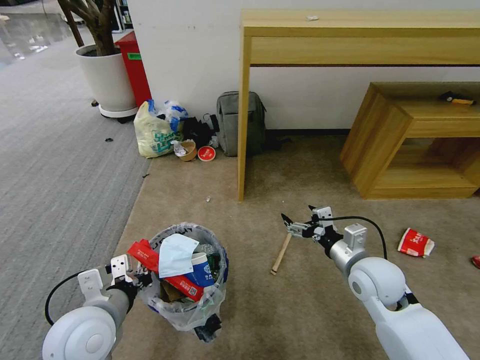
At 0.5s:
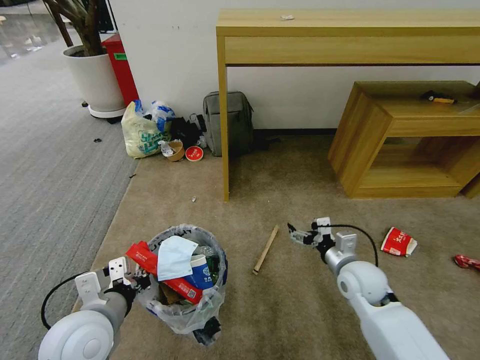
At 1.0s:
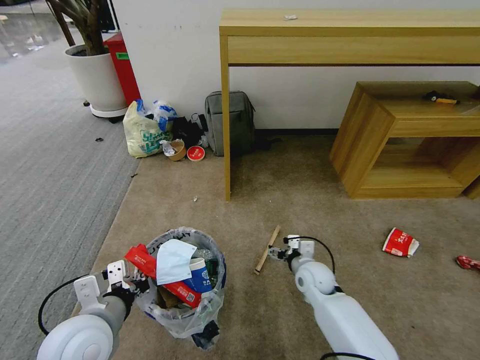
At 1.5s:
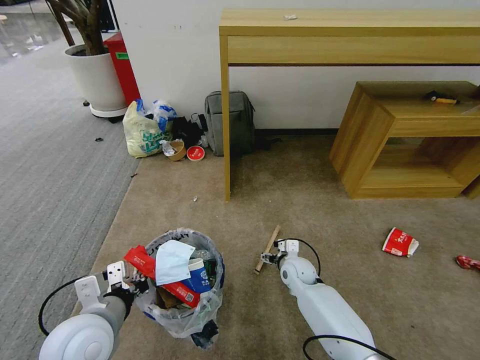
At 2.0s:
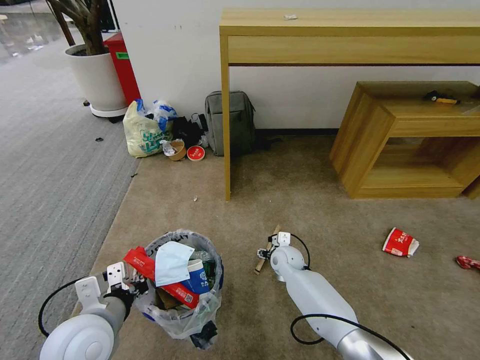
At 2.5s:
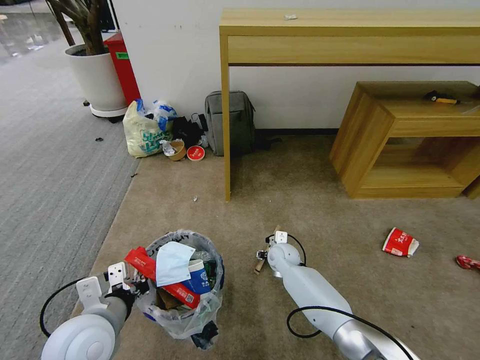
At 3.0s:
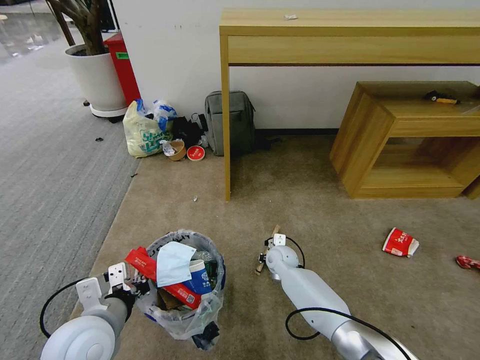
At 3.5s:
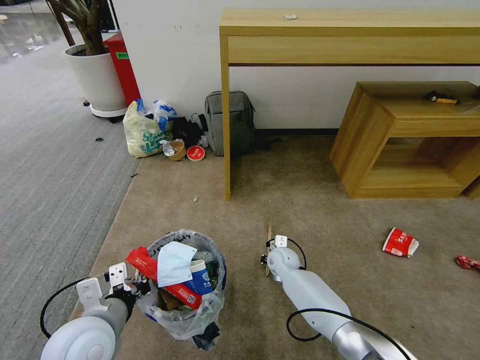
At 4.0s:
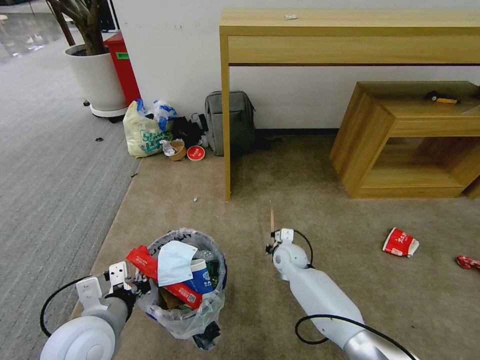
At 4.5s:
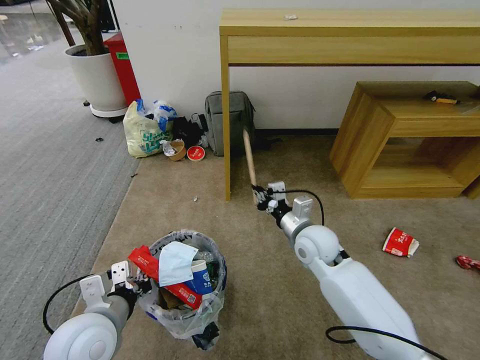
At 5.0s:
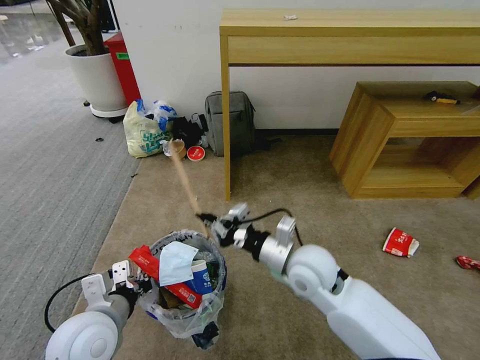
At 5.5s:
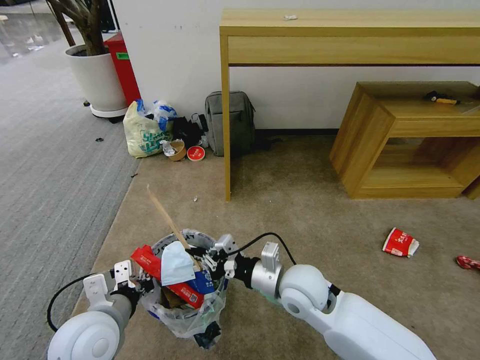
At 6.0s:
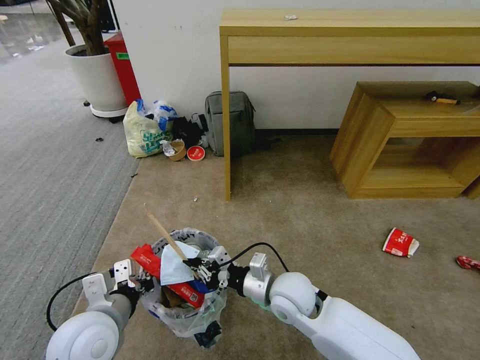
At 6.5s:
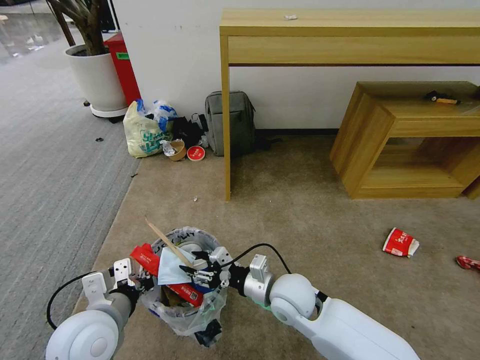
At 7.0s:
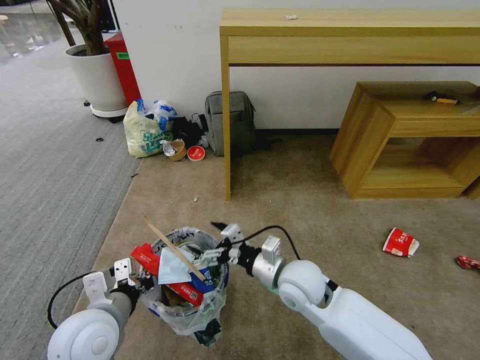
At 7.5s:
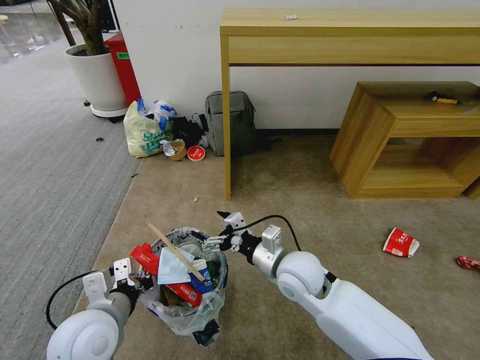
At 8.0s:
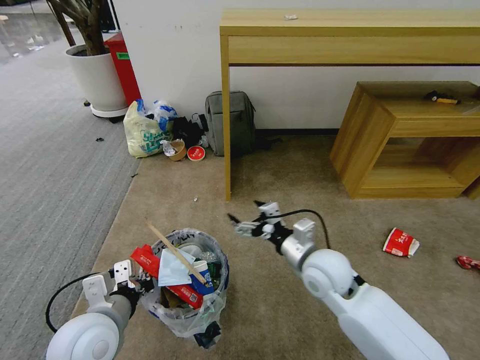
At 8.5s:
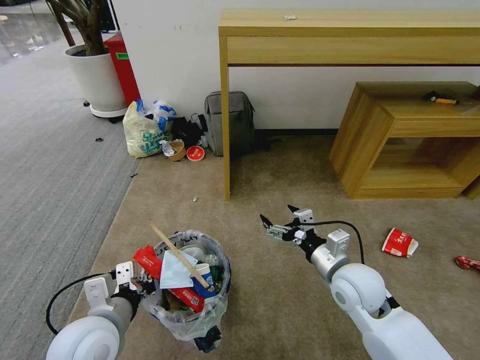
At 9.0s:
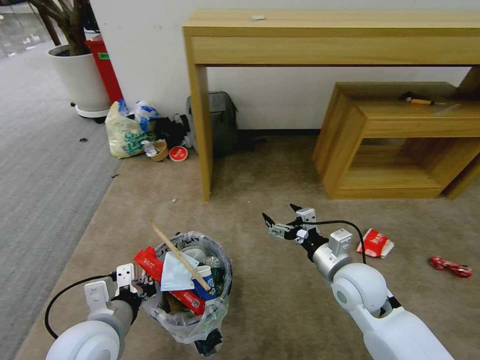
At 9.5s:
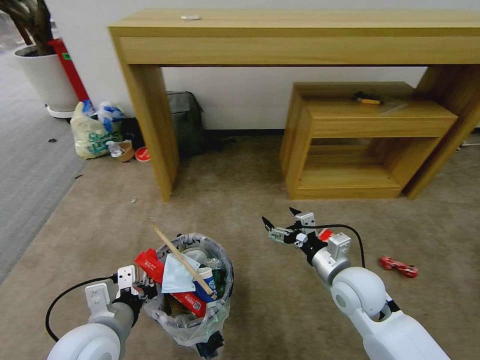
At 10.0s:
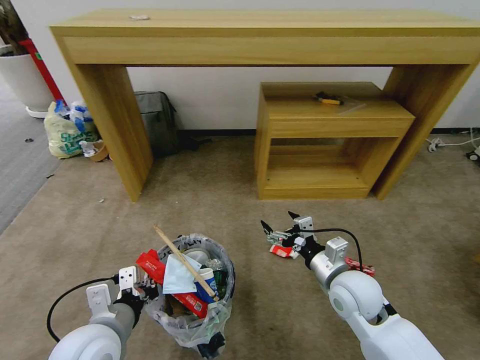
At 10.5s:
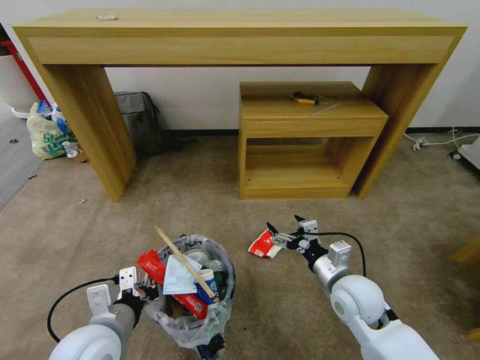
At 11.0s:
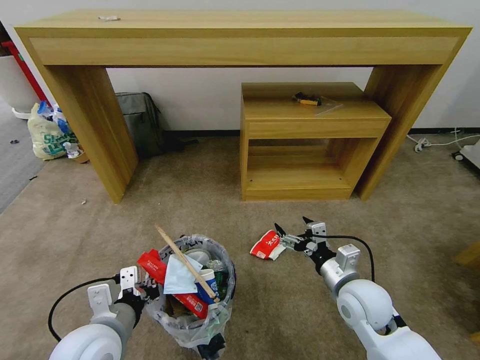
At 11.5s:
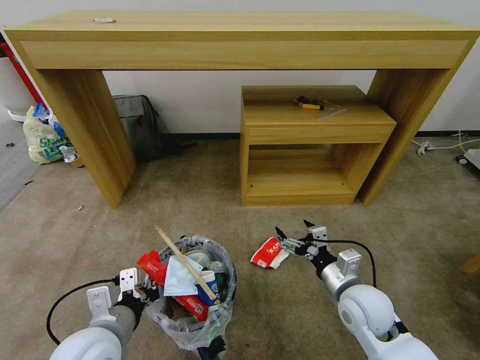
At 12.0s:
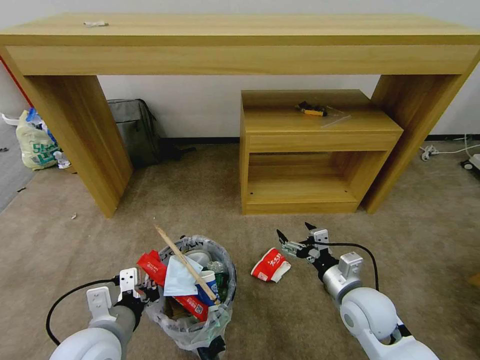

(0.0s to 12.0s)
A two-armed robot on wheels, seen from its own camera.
Task of the whole recording: Pick up the trash bin and place the garbage on the floor into it.
0.0s - 2.0s: The right gripper is displaced downward, forward and to the left by some 25 cm.
2.0s - 4.0s: The right gripper closes its fingers.
4.0s - 6.0s: The right gripper moves backward and upward, some 20 cm.
6.0s - 8.0s: The right gripper shifts some 10 cm to the right and upward, and opens.
8.0s - 10.0s: The right gripper moves to the right, some 5 cm.

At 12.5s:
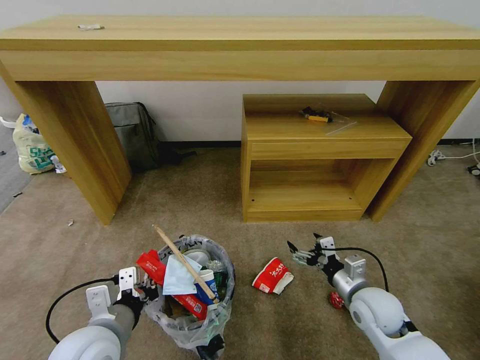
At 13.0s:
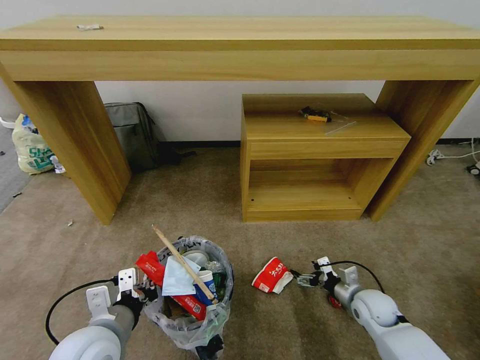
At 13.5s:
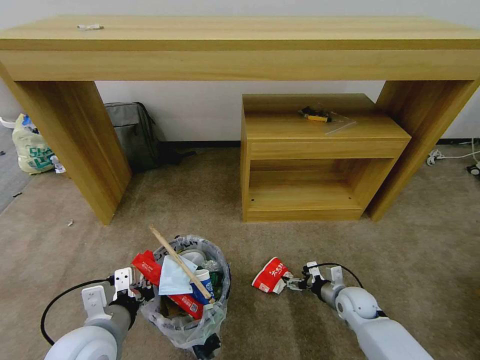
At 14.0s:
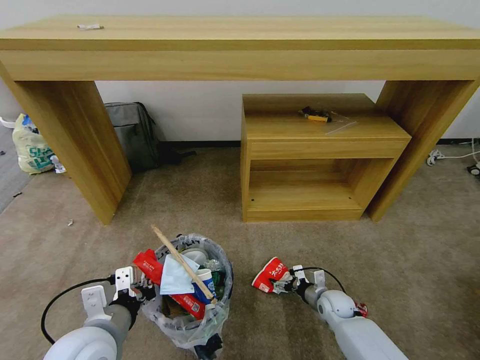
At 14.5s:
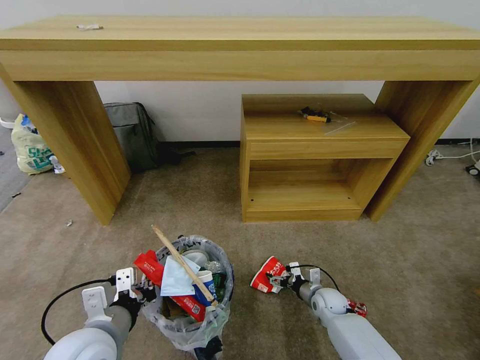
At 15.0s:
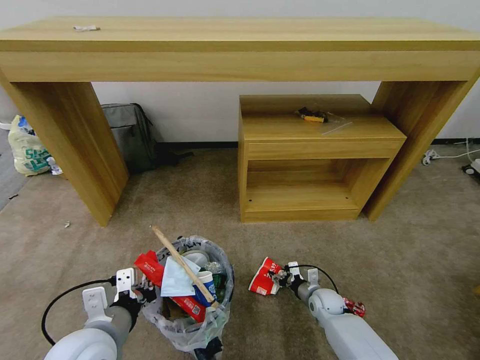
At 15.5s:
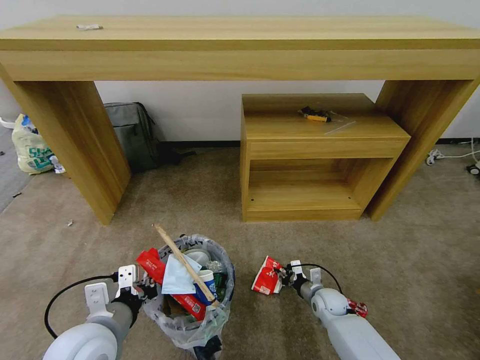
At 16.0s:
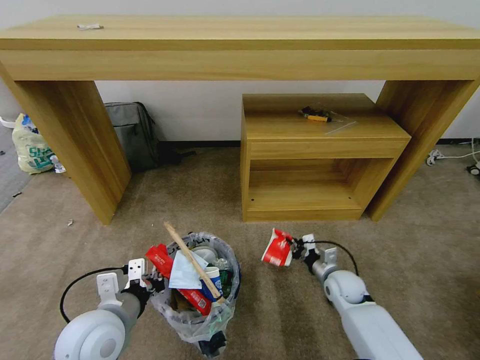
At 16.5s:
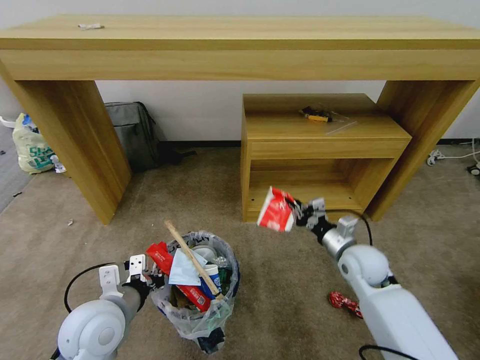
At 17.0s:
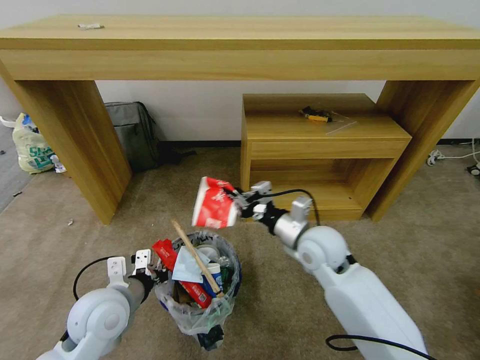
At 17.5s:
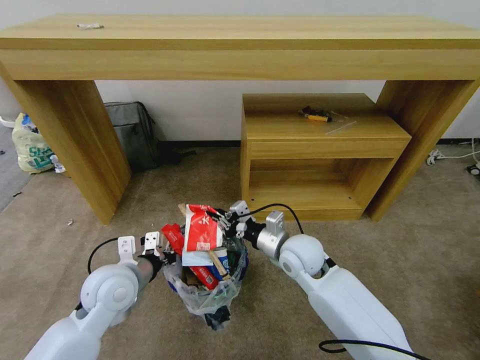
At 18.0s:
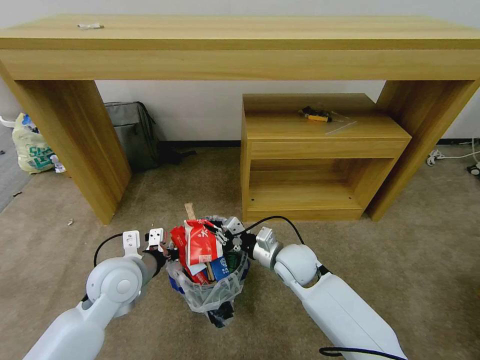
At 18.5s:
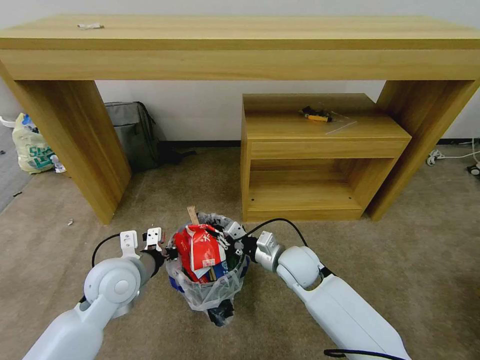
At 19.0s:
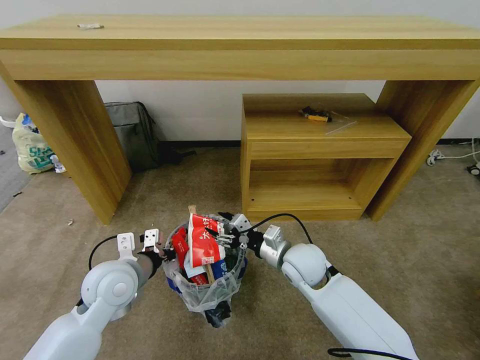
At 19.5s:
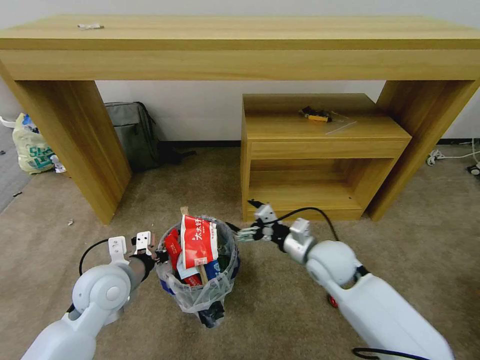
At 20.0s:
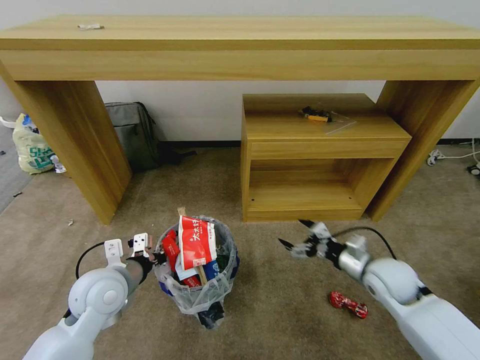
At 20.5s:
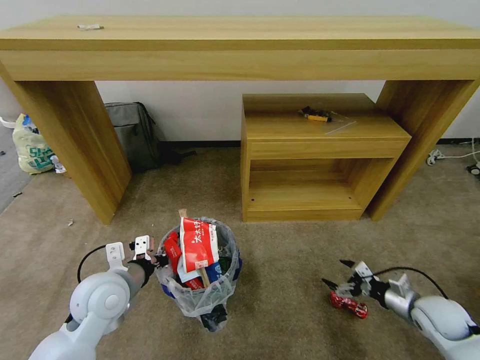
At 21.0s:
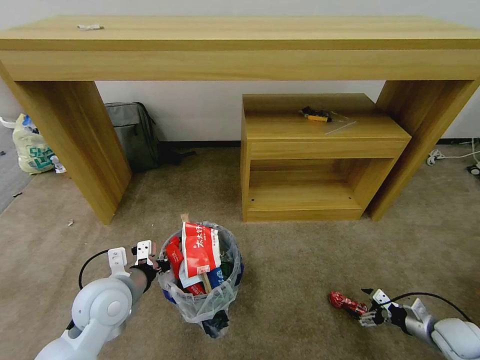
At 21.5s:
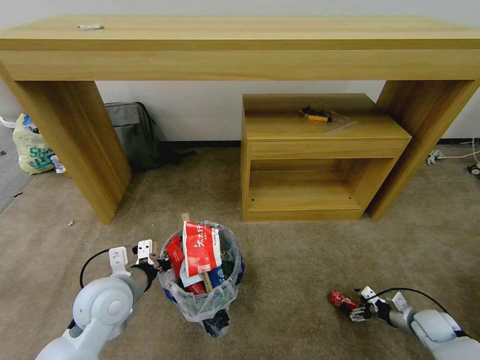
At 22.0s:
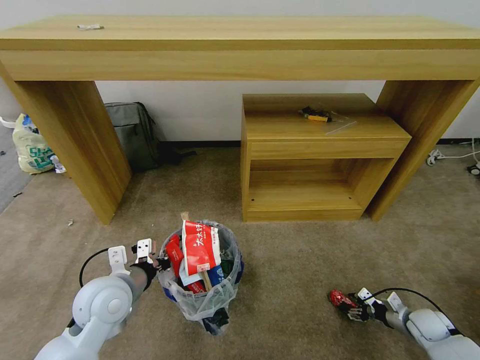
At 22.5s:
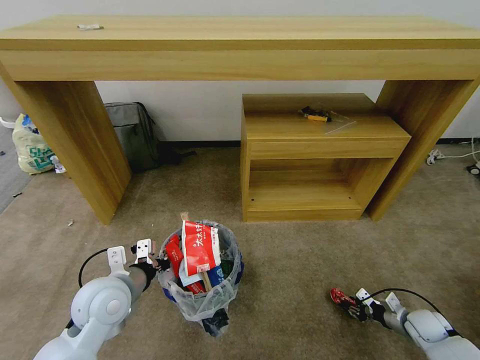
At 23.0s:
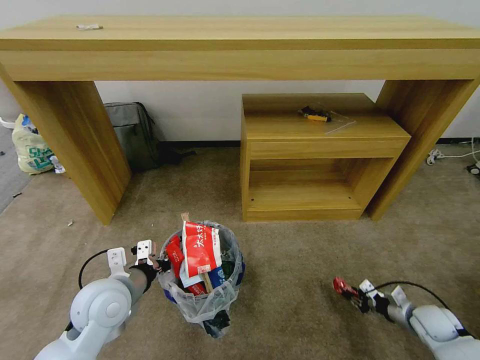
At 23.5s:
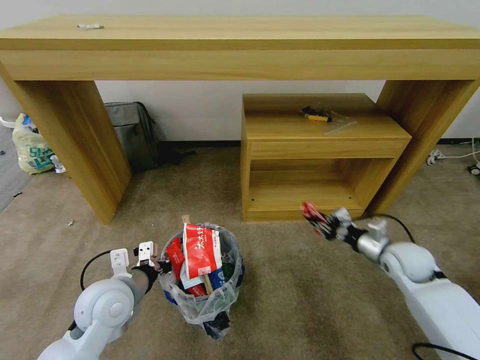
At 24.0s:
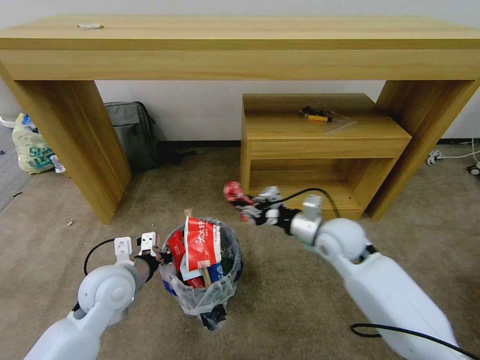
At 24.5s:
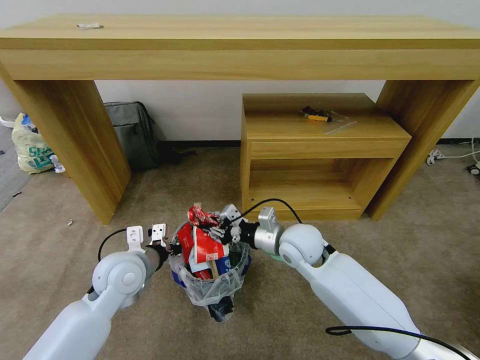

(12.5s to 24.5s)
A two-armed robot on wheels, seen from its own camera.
Task of the whole recording: Pick up the trash bin and place the garbage on the floor into it.
12.5s - 14.5s: The right gripper moves downward and forward, approximately 20 cm.
14.5s - 16.5s: The right gripper shifts approximately 25 cm upward, and closes; the left gripper changes place by approximately 5 cm.
16.5s - 18.5s: The right gripper travels to the left by about 15 cm, while the left gripper goes about 10 cm forward.
18.5s - 20.5s: The right gripper heads to the right, covering roughly 30 cm, and opens.
20.5s - 22.5s: The right gripper moves downward, roughly 10 cm, and closes its fingers.
22.5s - 24.5s: The left gripper shifts about 5 cm forward; the right gripper moves to the left and upward, about 40 cm.

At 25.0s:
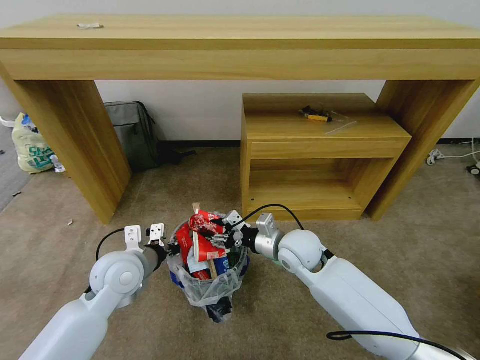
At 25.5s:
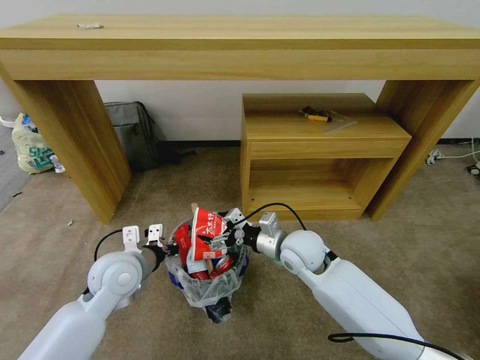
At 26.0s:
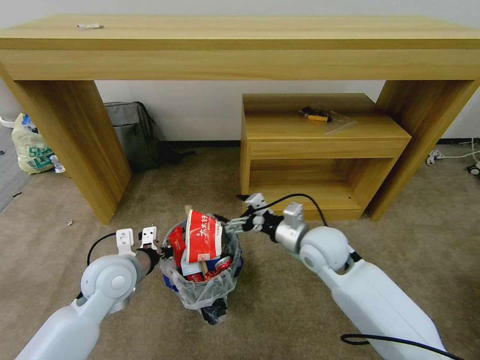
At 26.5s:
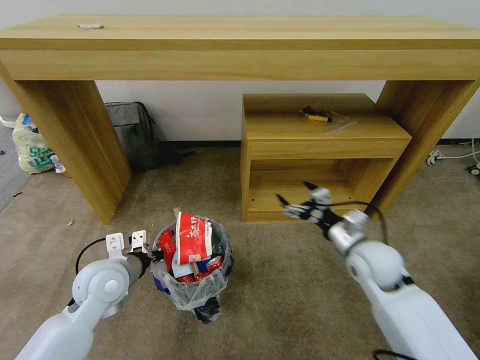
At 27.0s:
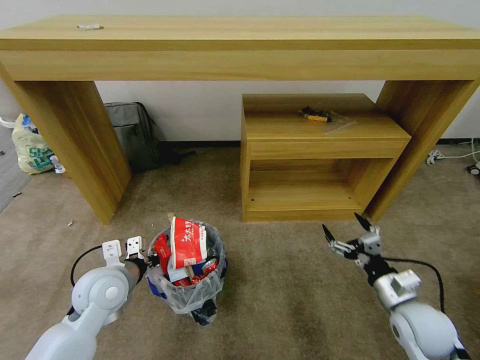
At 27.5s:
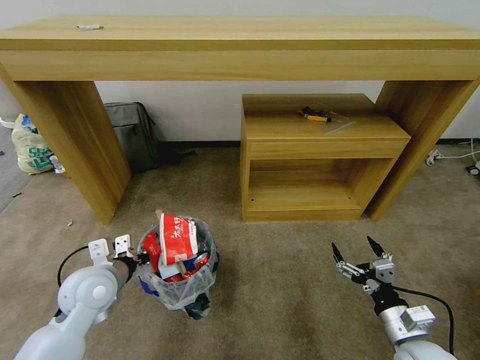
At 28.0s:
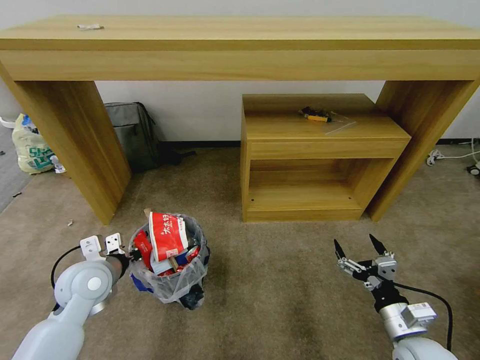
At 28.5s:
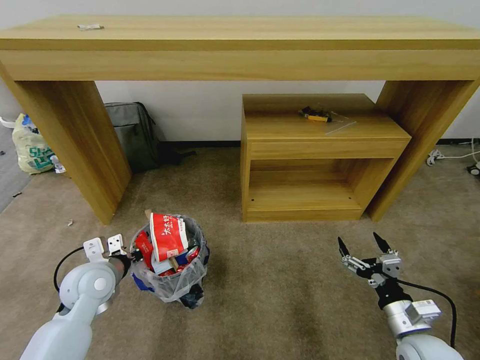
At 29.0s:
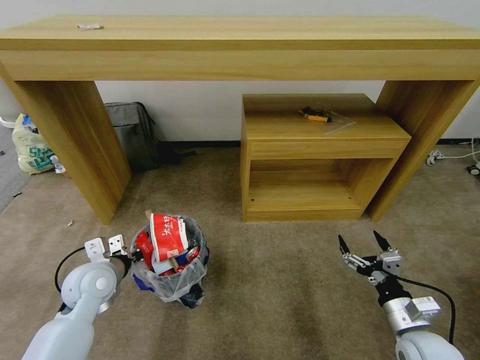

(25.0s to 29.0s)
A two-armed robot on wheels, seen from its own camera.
Task of the whole recording: Pick up the trash bin and place the garbage on the floor into it.
25.0s - 27.0s: The right gripper heads to the right and backward, covering about 25 cm, and opens its fingers.
27.0s - 29.0s: The right gripper goes some 5 cm backward.
